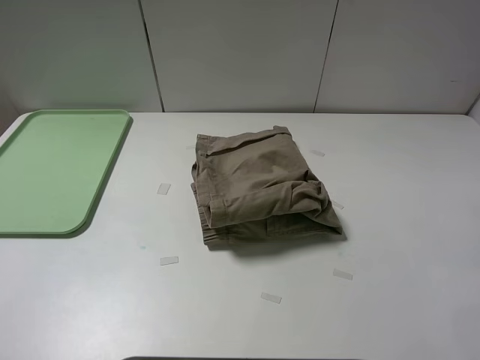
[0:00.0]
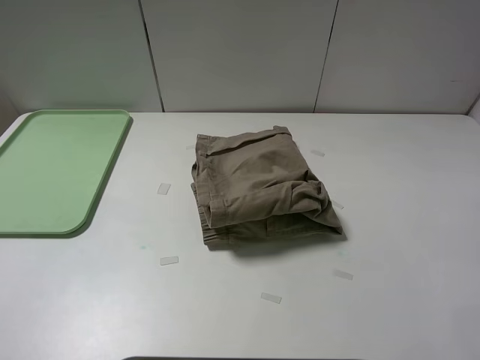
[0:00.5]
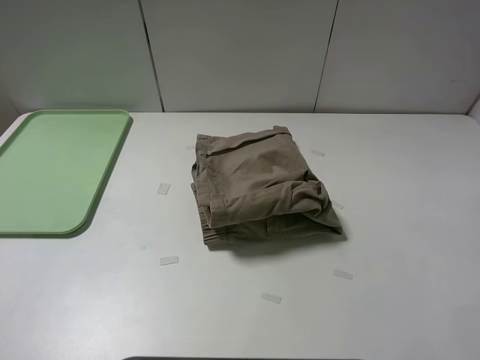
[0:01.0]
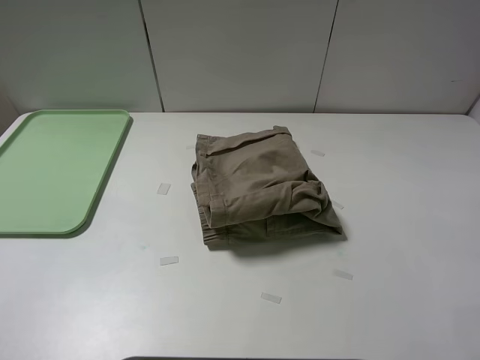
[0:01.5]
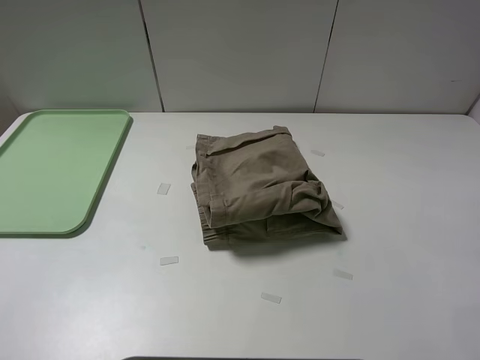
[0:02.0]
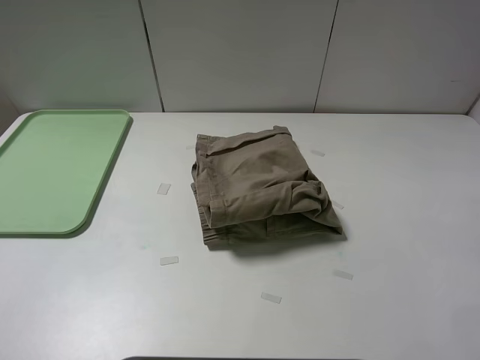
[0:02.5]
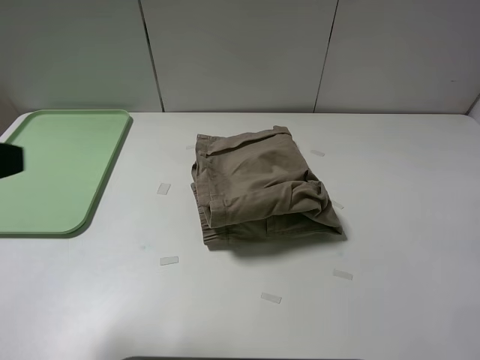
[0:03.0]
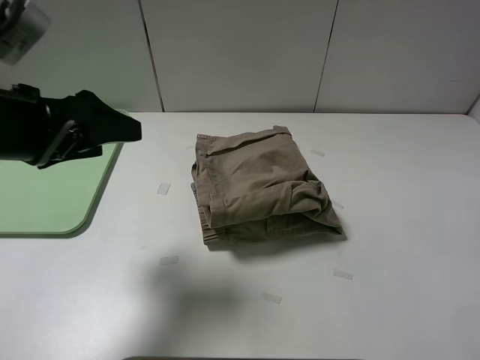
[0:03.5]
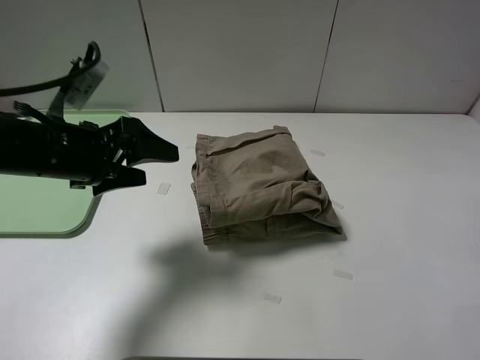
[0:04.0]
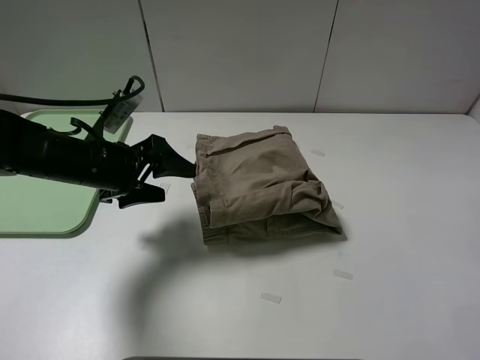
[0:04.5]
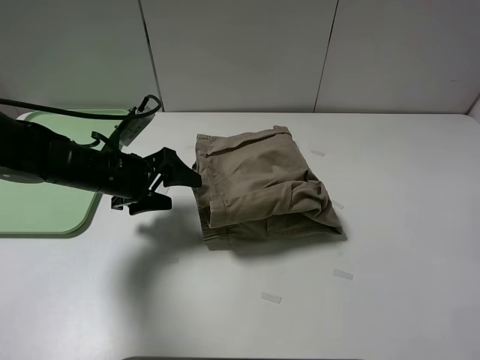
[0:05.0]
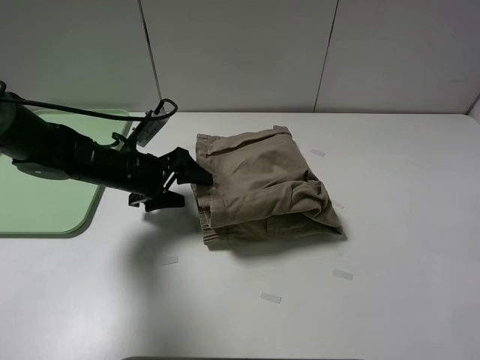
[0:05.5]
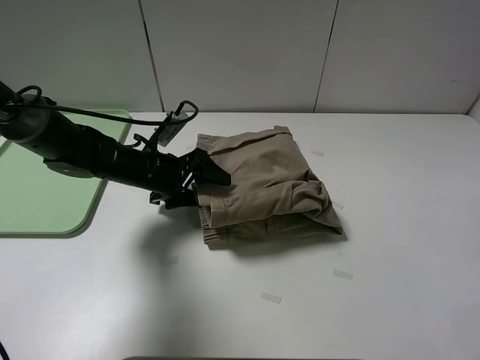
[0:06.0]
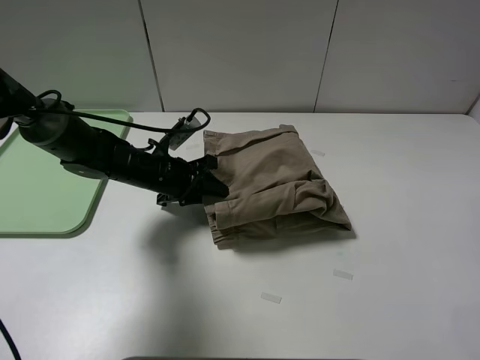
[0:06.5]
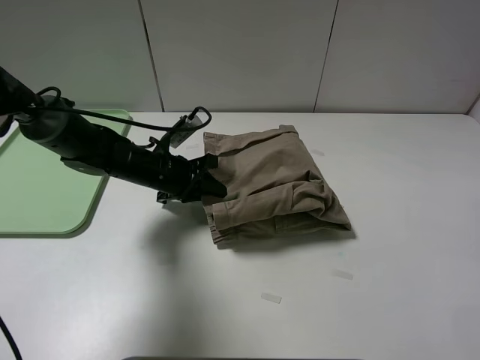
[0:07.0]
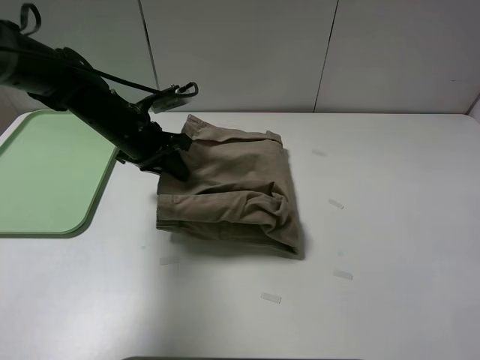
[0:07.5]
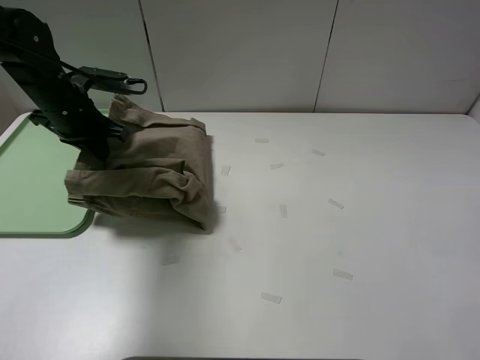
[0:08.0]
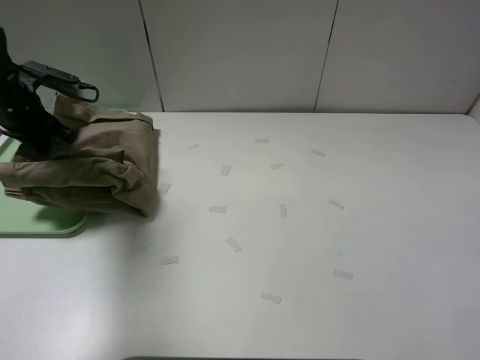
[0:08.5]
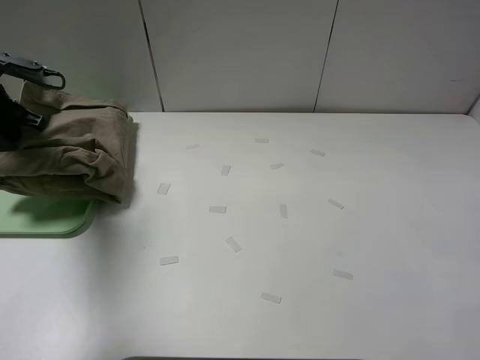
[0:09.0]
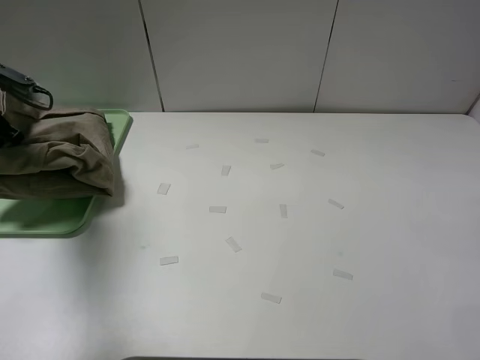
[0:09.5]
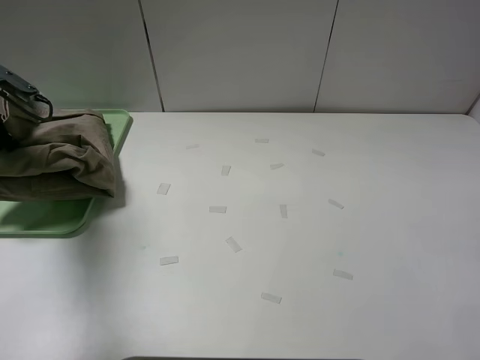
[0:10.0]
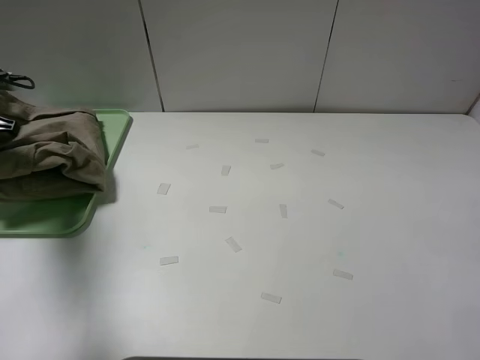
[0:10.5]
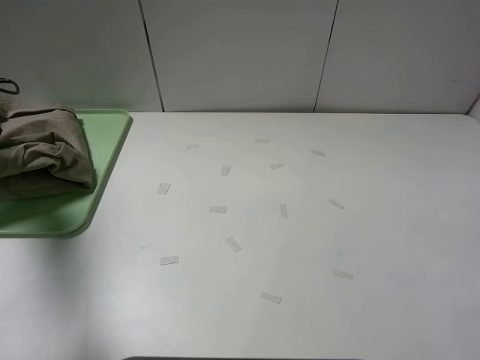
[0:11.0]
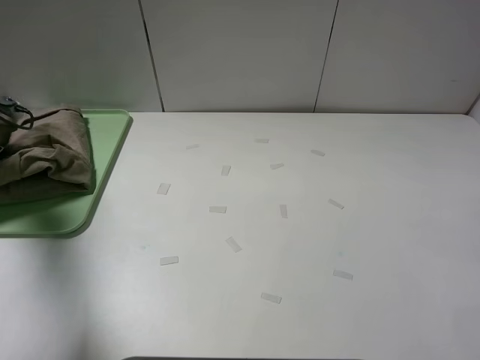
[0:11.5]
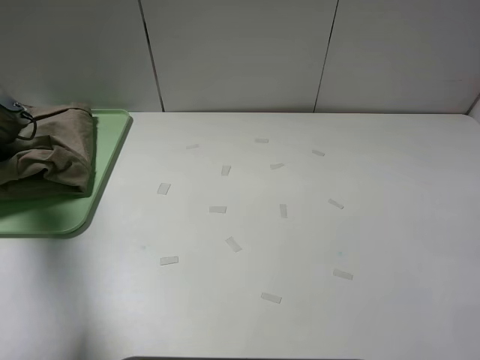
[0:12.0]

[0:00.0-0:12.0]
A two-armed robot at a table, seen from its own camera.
Task of the whole recording: fold the khaki jeans in half with two grippers, then fold them in half again, and use the left claw to place the folded fold khaki jeans on the tray.
Step, 0:00.0 to 0:06.5: Grasp the khaki trousers with the left gripper.
0:02.0 to 0:04.0: The left gripper shifts some 30 cm forward, downward and to the right.
0:04.0 to 0:06.0: The left gripper travels downward, forward and to the right by some 15 cm.
0:06.0 to 0:08.0: The left gripper heads upward, to the left and forward, covering some 15 cm, and closes its fingers.
0:08.0 to 0:10.0: The left gripper moves to the left, roughly 15 cm.
0:10.0 to 0:12.0: The left gripper goes some 5 cm to the left.

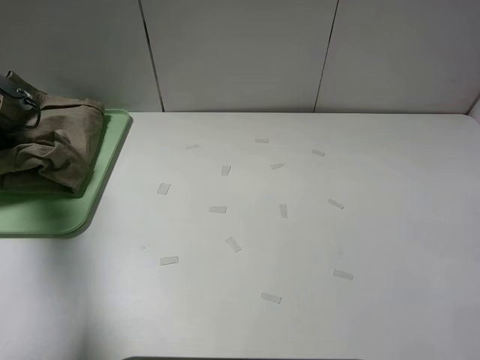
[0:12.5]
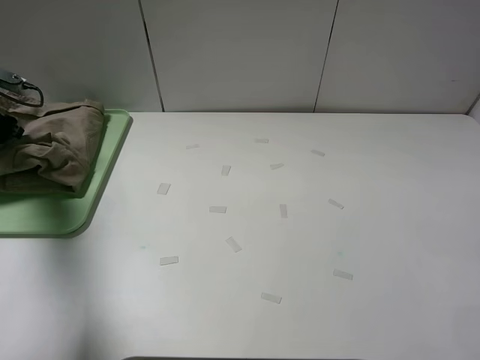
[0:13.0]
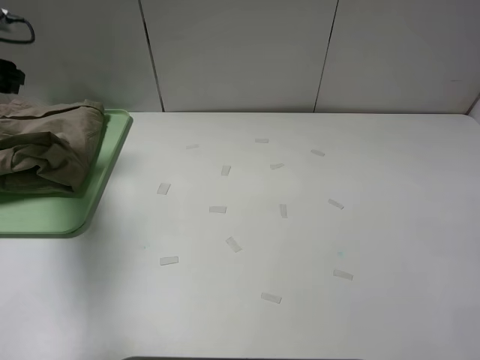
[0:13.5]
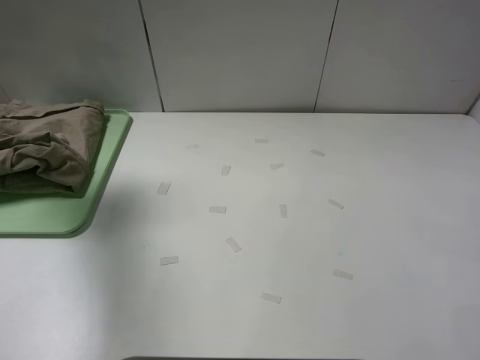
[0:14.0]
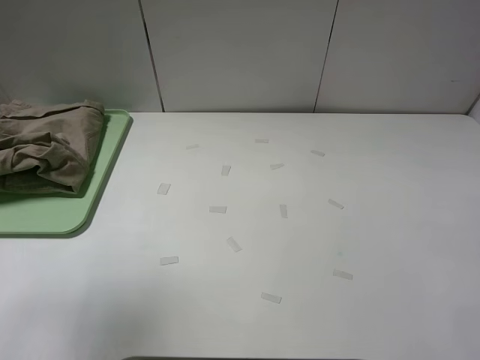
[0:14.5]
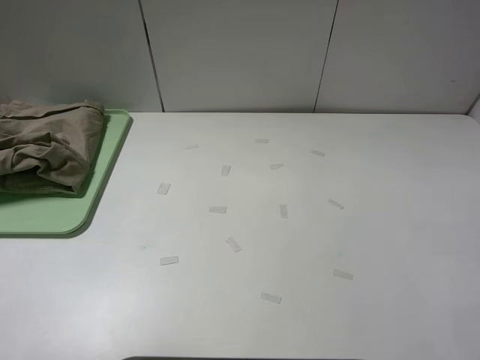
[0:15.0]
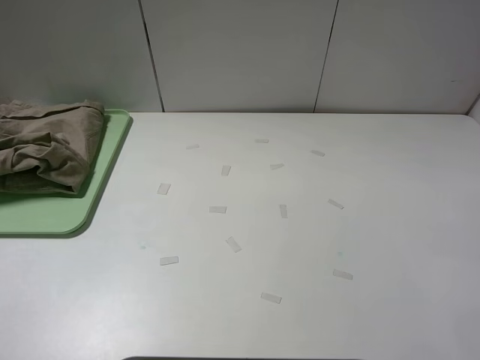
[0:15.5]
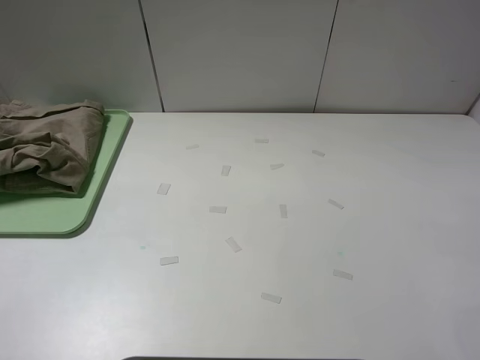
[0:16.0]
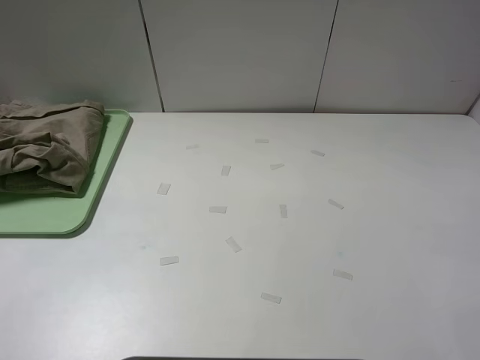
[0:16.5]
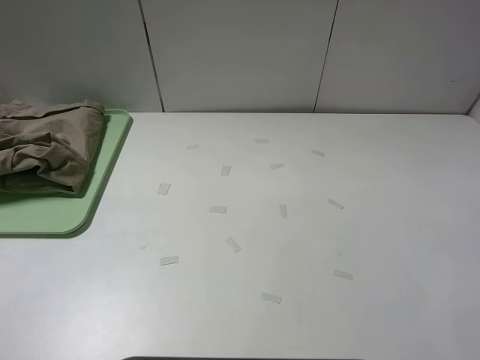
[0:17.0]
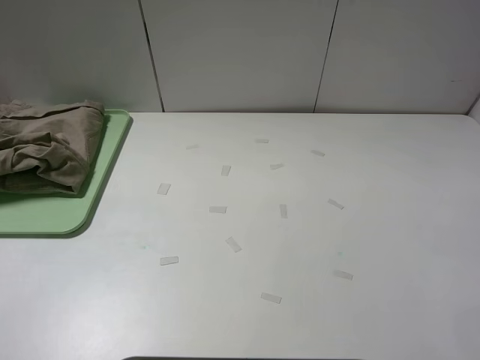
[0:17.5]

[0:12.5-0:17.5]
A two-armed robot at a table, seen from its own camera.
Task of the whole recording: fold the khaki jeans in half with two grippers, then fold them in half again, and use the left claw to place the folded fold khaki jeans on the tray.
0:12.5 to 0:15.0: The left gripper is displaced backward and upward by some 40 cm, and opens.
